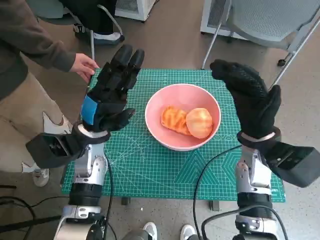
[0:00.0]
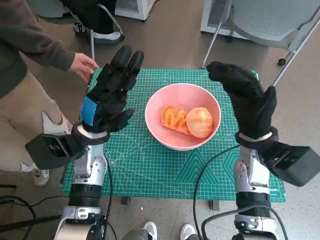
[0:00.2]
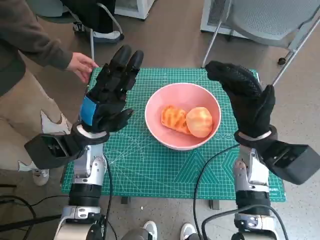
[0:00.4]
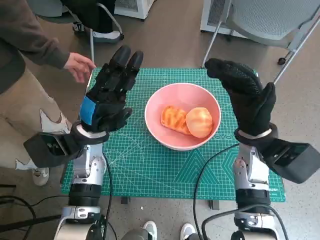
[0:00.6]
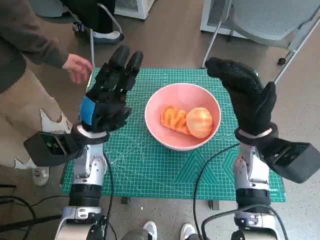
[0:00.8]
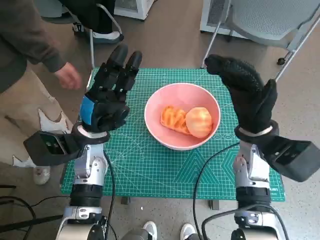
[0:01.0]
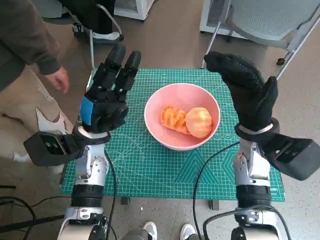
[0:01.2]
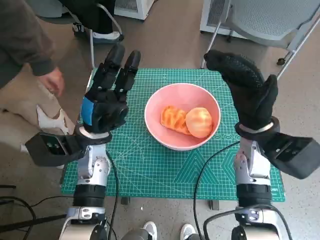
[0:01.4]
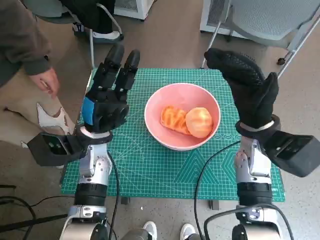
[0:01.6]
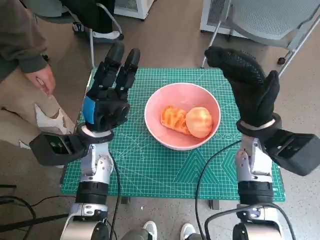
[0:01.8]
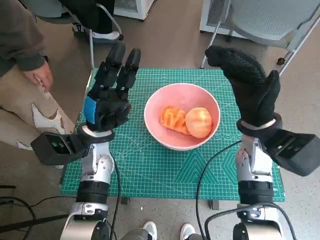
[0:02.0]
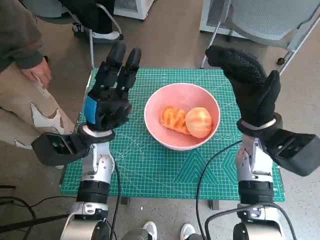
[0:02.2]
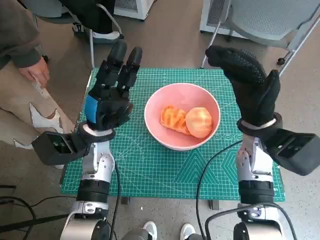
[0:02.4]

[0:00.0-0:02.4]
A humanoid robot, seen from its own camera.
0:00.0 to 0:01.2: There are only small adjustments of the hands.
0:01.2 to 0:02.4: Neither hand changes place.
